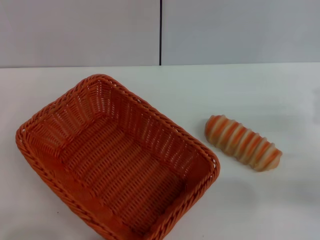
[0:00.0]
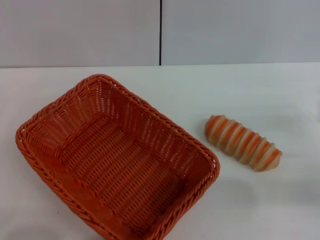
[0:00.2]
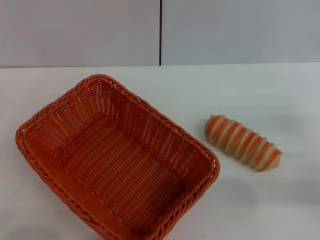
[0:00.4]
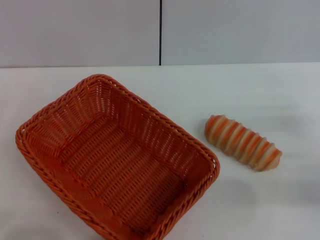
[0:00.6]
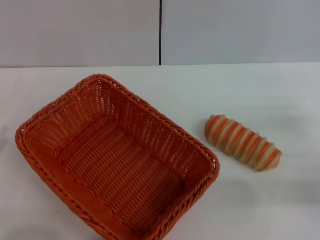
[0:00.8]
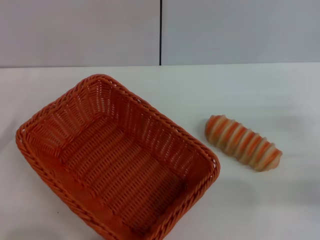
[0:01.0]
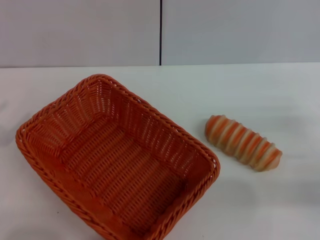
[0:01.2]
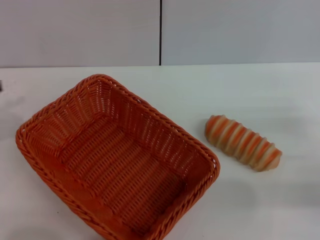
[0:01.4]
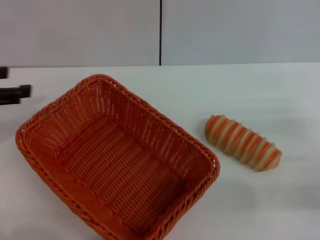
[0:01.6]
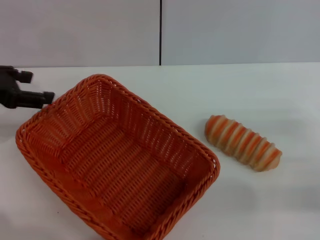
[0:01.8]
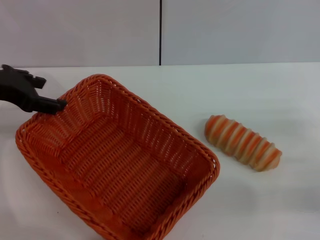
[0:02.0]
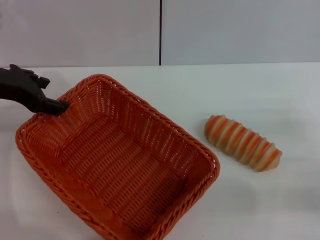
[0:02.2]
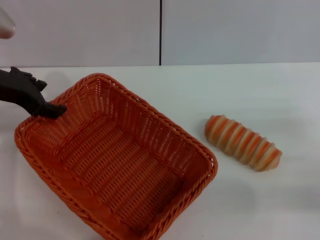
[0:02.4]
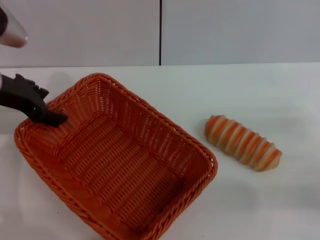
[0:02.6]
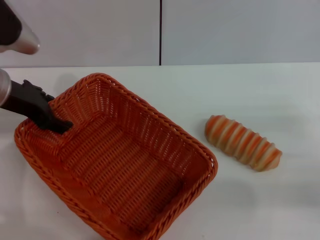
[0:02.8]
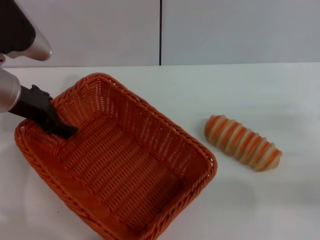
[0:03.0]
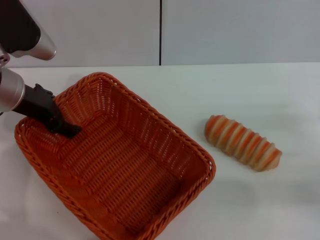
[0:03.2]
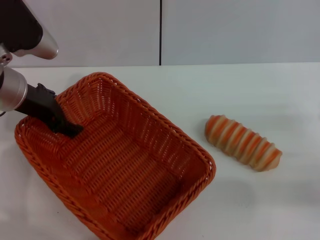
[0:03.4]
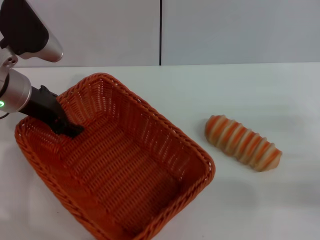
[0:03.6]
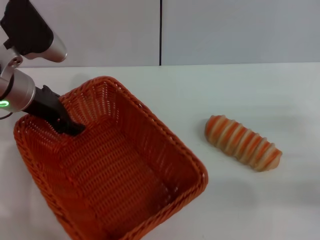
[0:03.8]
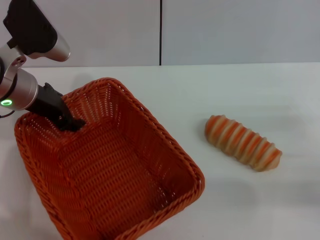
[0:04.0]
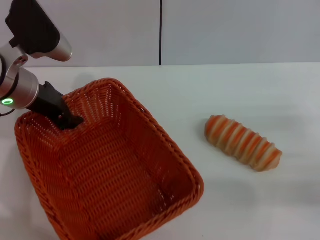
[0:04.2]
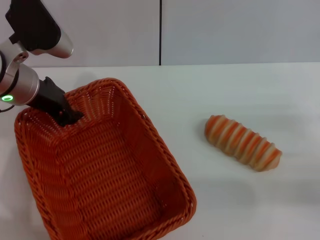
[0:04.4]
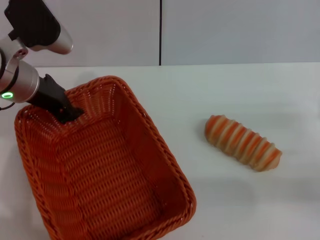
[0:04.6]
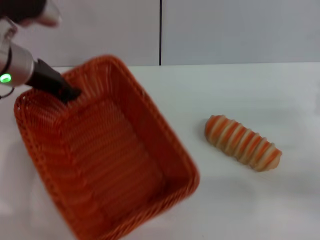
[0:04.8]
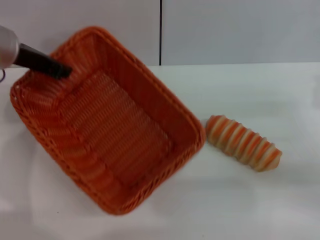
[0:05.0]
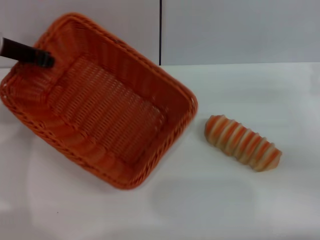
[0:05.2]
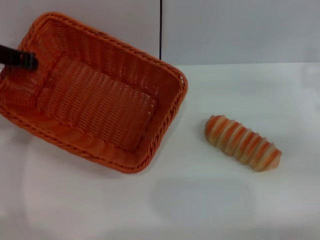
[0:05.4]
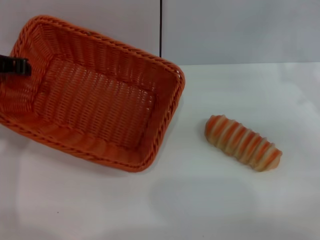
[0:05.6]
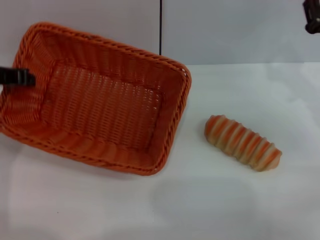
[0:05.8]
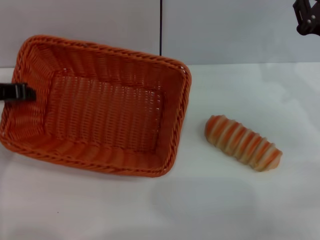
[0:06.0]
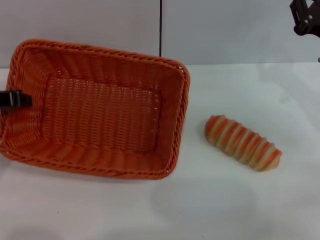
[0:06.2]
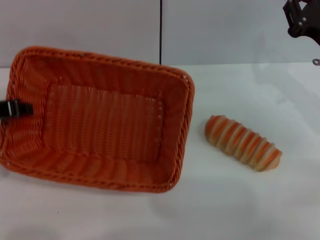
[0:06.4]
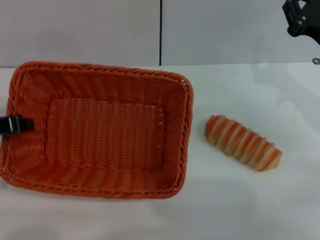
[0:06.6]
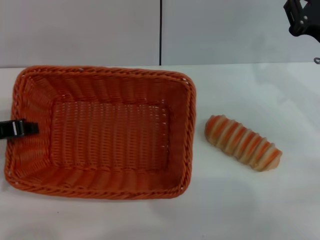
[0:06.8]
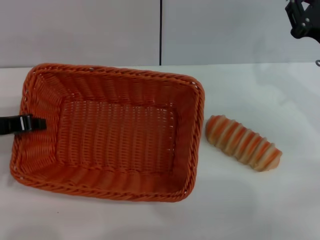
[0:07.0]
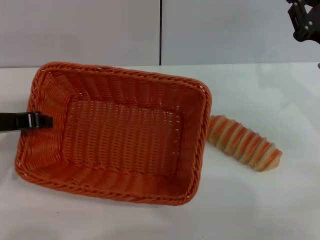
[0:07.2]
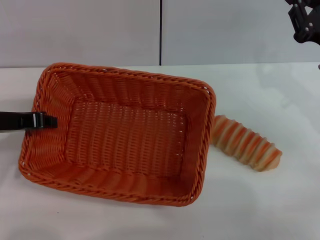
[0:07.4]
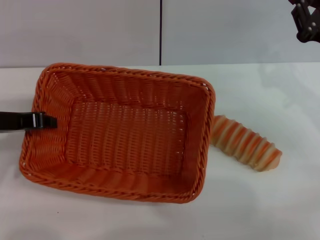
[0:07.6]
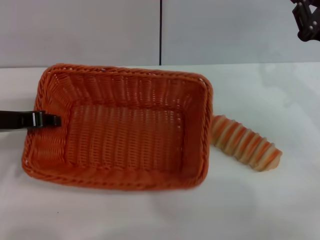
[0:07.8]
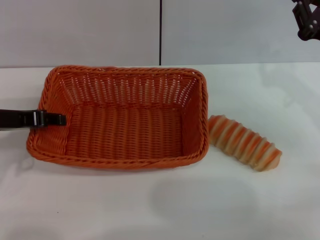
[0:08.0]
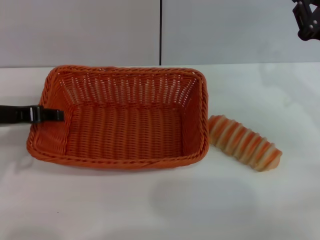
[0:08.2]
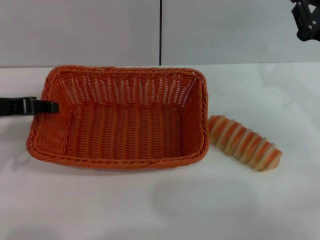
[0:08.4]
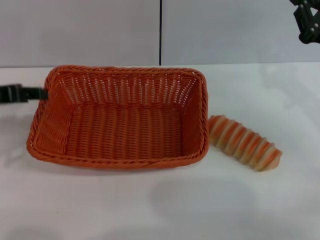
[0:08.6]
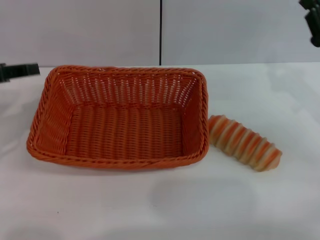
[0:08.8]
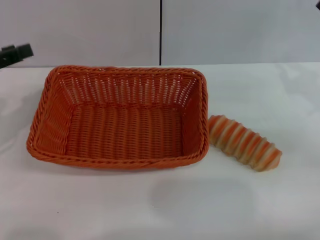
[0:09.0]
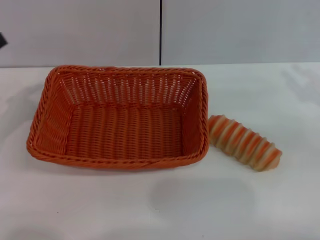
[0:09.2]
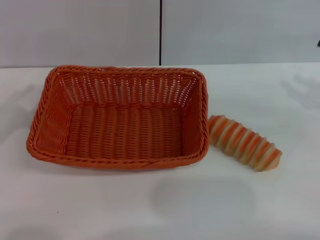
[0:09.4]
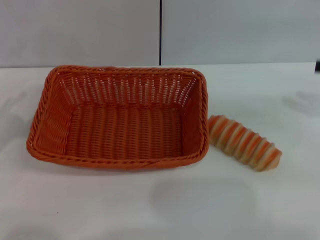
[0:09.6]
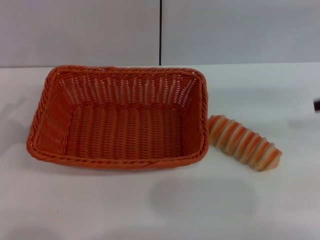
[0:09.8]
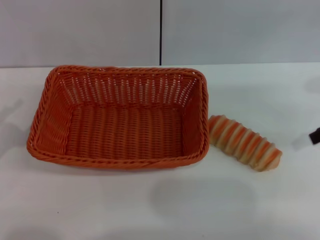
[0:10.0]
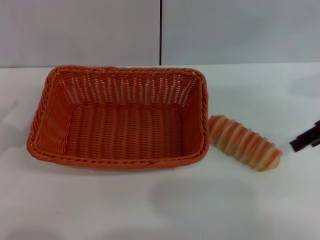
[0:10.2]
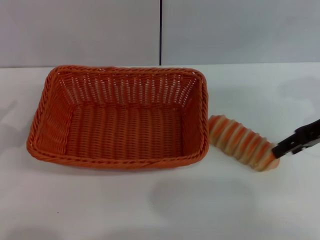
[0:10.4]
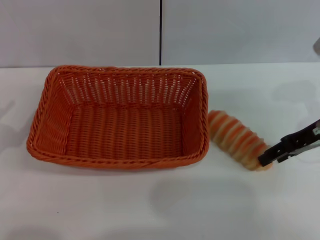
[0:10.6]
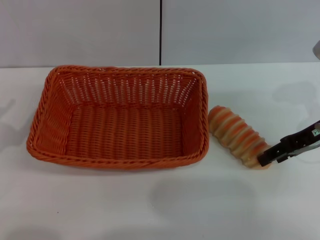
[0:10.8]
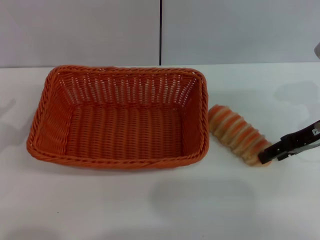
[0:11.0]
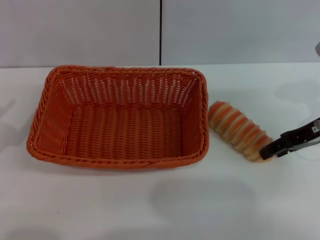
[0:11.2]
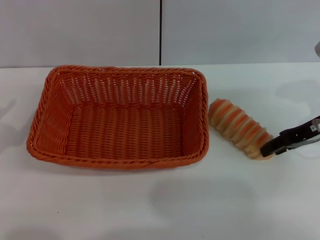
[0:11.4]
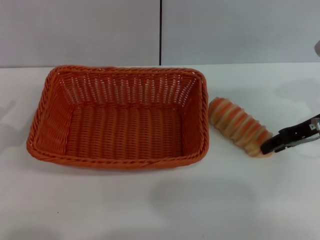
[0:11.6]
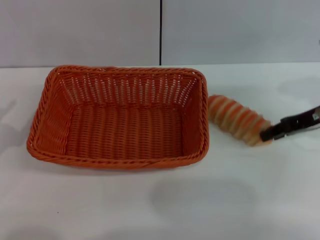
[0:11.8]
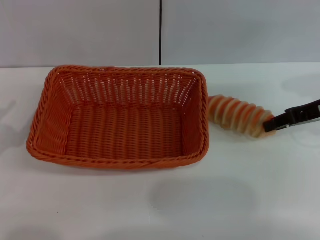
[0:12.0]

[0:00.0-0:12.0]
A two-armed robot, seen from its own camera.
Step, 0:00.0 to 0:05.0: Pick up the light basket with the left gripper.
Step, 0:05.2 to 0:08.4: Place the light basket in the center of view with the left gripper.
0:00.0 to 0:01.6: The left gripper moves upward and forward, about 20 cm.
0:01.6 to 0:03.0: The left gripper moves to the right and forward, roughly 15 cm.
0:03.0 to 0:04.4: The left gripper closes up.
0:04.4 to 0:06.0: The left gripper goes some 5 cm to the left, and closes up. The right gripper moves forward and upward, roughly 15 cm.
0:07.6 to 0:09.0: The left gripper travels to the left by roughly 5 cm, and opens.
0:09.0 to 0:10.4: The right gripper moves approximately 5 cm, and opens its fingers. Meanwhile the left gripper shifts about 15 cm downward and backward.
0:10.4 to 0:12.0: The right gripper closes.

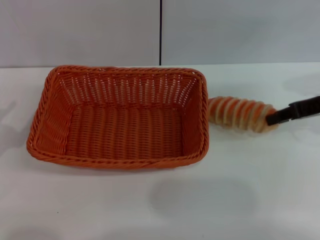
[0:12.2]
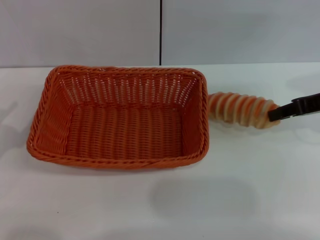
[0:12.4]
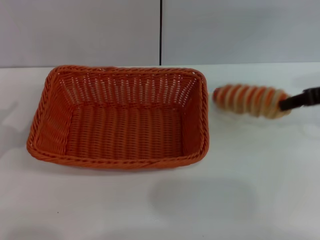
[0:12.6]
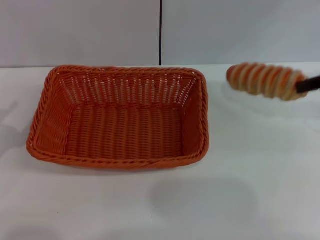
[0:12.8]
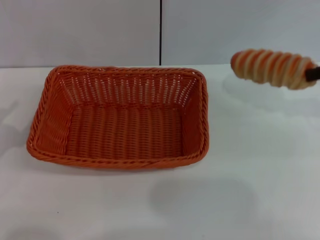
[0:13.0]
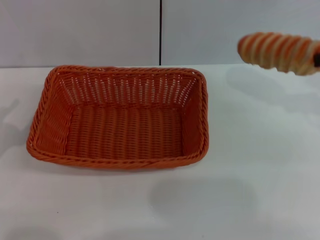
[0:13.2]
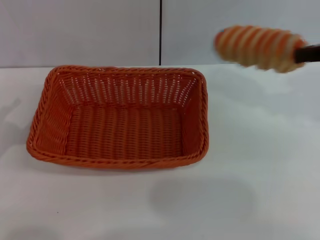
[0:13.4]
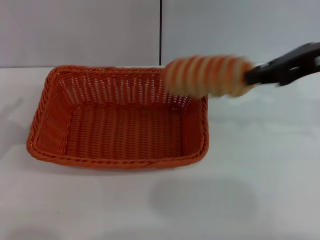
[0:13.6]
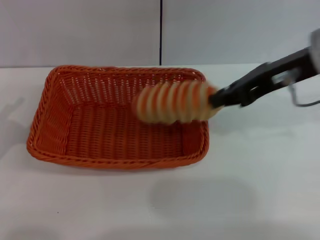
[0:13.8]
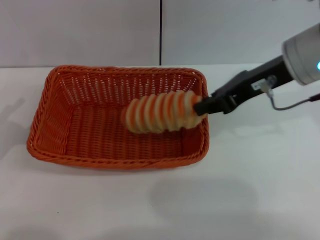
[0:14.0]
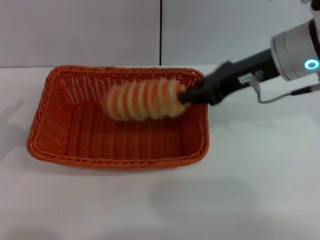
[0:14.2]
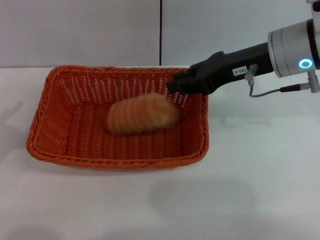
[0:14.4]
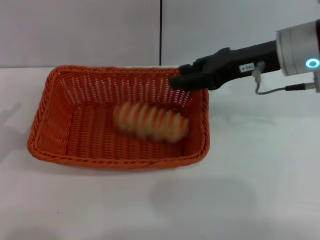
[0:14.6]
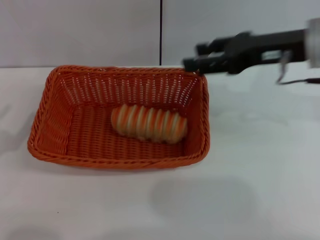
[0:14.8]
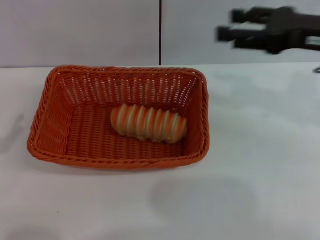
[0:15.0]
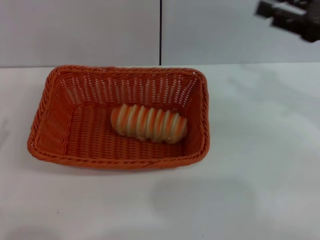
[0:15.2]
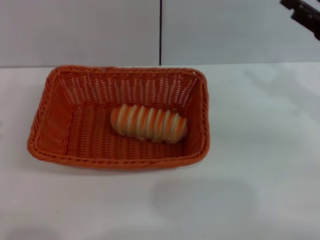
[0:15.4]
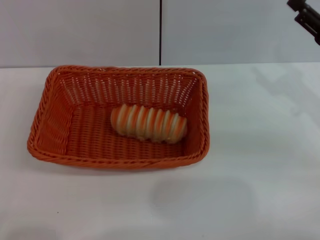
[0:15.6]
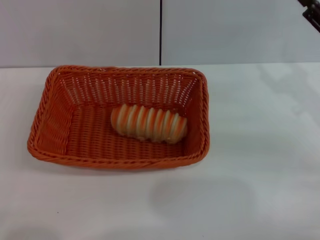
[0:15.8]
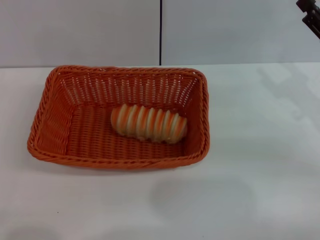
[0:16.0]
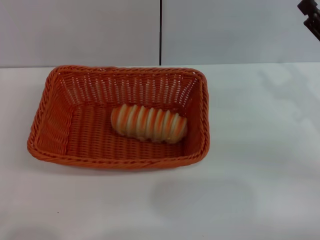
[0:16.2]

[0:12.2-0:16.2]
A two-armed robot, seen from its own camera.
Step, 0:13.4 to 0:14.6: Place the long bread into the light basket with the right gripper.
0:12.2 to 0:13.6: The right gripper goes approximately 15 cm upward and to the left.
0:13.6 to 0:14.8: The right gripper heads downward, covering approximately 5 cm, and opens up.
0:14.8 to 0:16.2: The right gripper shifts approximately 15 cm downward and to the right, while the left gripper shifts by roughly 5 cm.

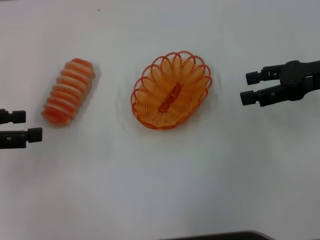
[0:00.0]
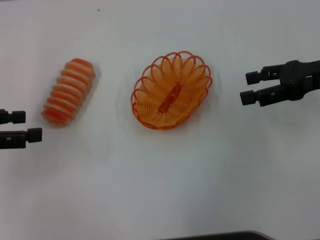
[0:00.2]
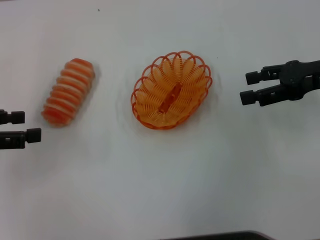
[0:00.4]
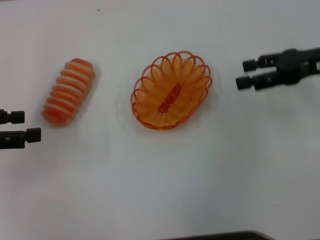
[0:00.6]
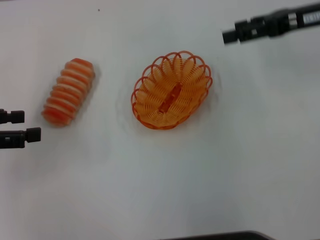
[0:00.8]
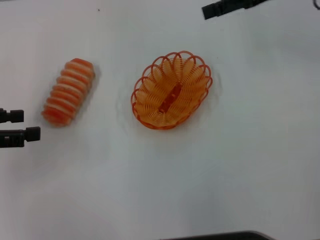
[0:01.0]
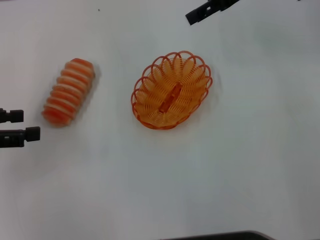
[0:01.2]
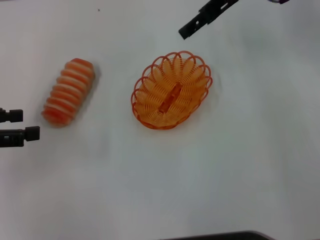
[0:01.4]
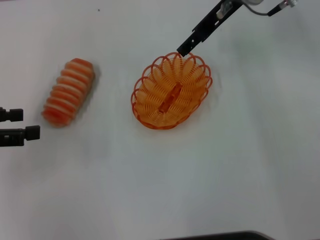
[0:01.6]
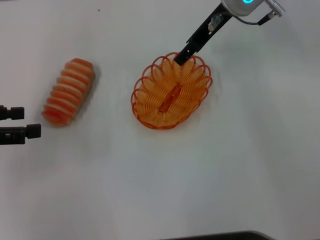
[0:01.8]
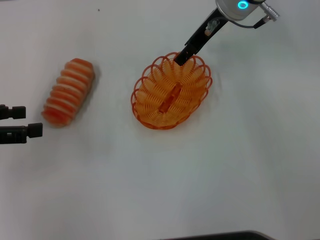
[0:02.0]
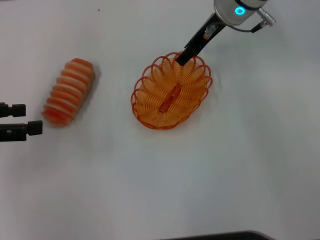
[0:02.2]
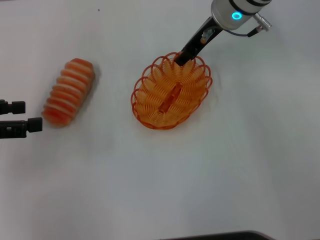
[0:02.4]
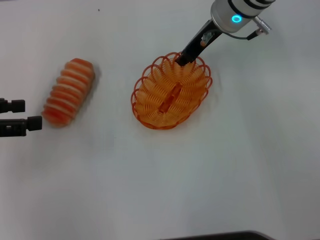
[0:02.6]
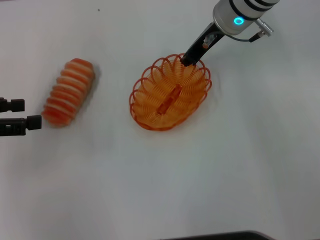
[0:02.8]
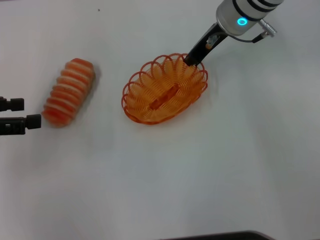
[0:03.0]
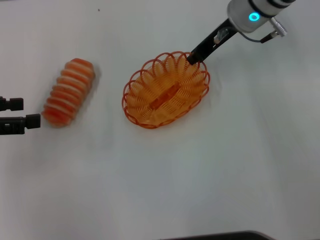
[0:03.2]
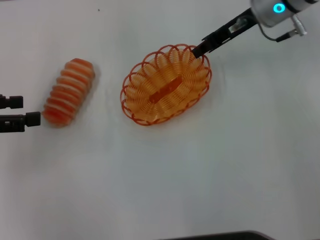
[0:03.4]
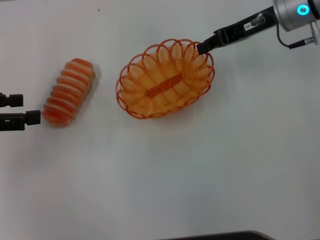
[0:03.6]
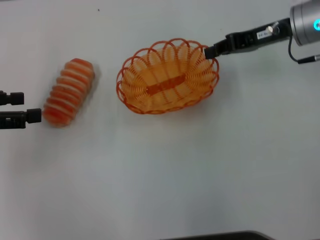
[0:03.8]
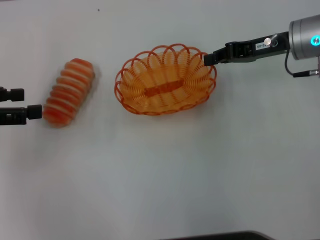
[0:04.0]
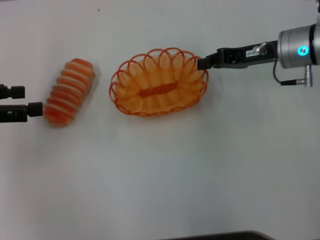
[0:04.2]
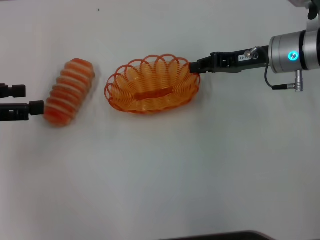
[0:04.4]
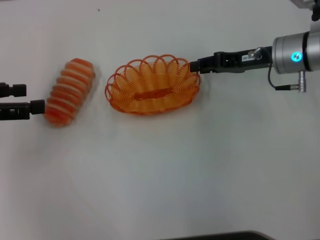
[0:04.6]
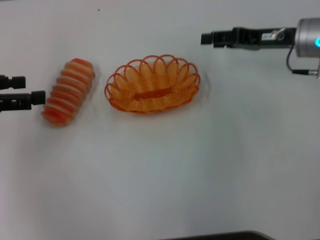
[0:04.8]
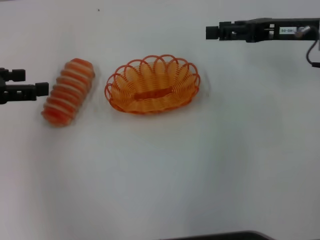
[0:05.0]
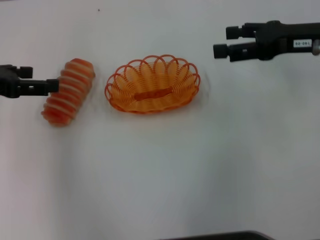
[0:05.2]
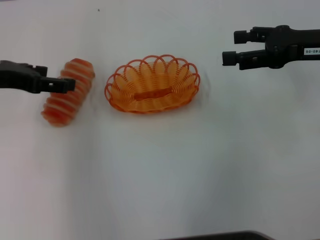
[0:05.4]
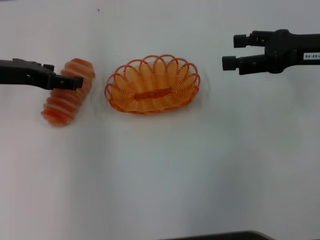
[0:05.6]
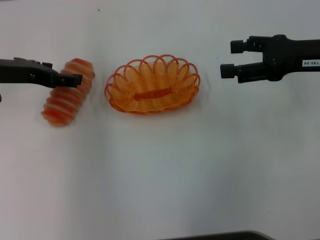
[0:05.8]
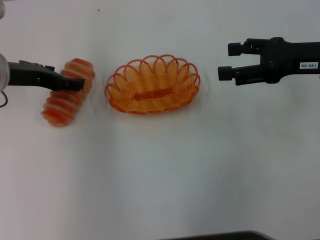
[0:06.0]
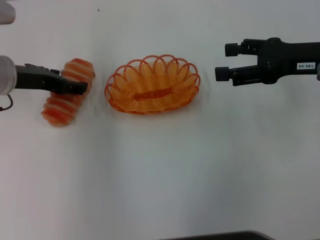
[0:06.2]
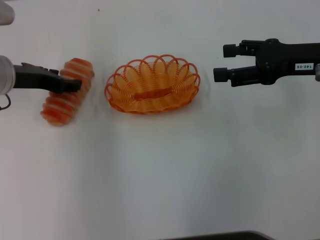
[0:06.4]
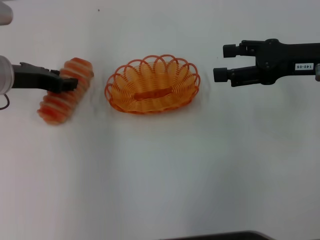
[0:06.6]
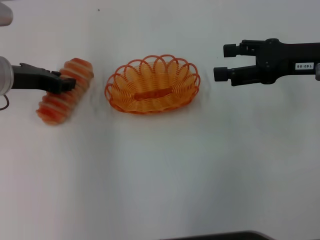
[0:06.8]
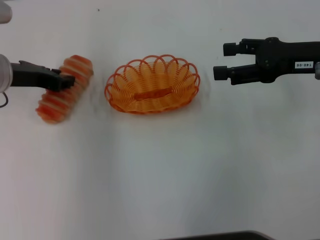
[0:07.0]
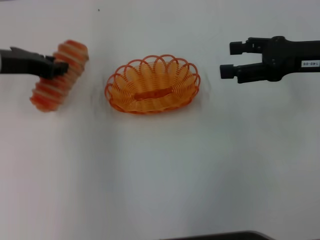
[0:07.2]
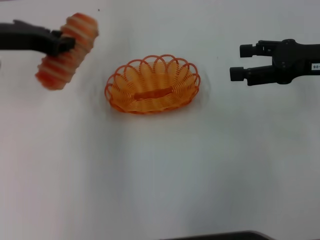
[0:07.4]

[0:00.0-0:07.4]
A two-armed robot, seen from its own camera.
Step, 0:00.0 to 0:03.4: Pick up the basket with the right gripper.
Step, 0:03.6 to 0:04.6: Place the basket in the center of view with the right gripper.
Step, 0:04.8 to 0:07.2: Pick up the long bread with the left gripper.
0:00.0 to 0:01.4: The right gripper goes some 20 cm to the left, forward and upward.
0:01.4 to 0:03.0: The right gripper travels downward by approximately 5 cm, and closes.
0:03.0 to 0:04.4: The right gripper heads to the right, backward and downward, covering approximately 10 cm.
0:04.4 to 0:06.0: The right gripper moves backward, to the right and upward, roughly 10 cm, and opens up. The left gripper shifts about 10 cm to the right and forward.
0:06.0 to 0:07.4: The left gripper travels upward by approximately 5 cm, and closes up.
